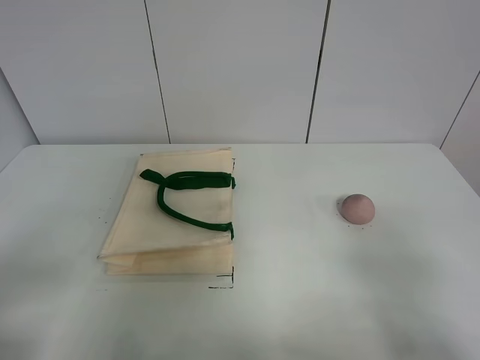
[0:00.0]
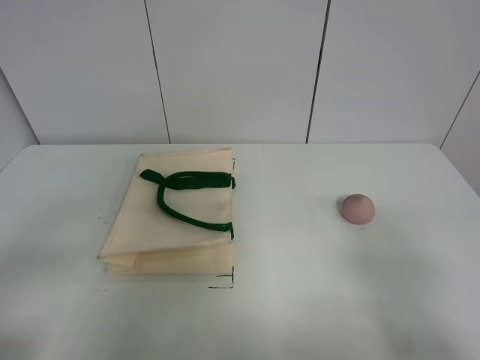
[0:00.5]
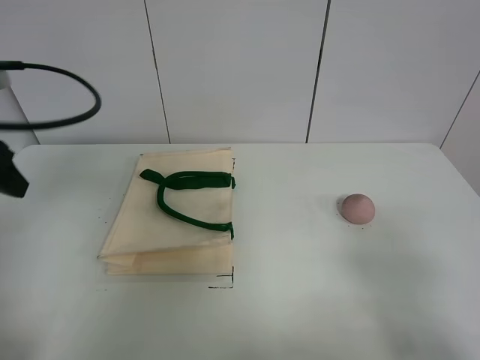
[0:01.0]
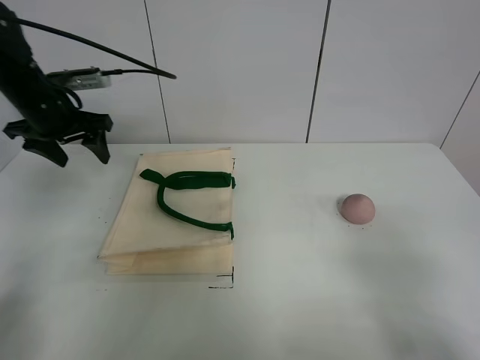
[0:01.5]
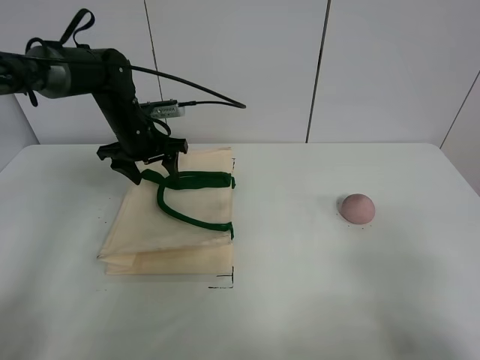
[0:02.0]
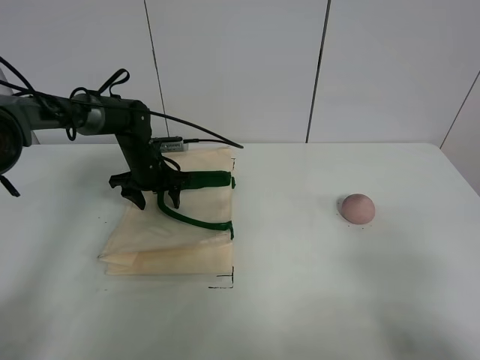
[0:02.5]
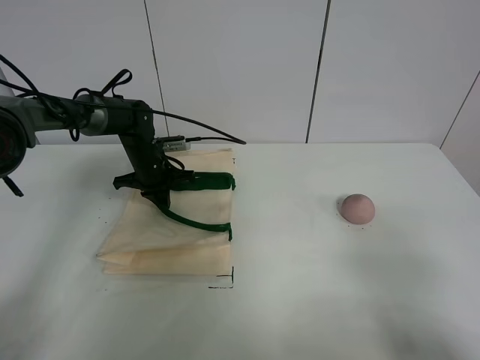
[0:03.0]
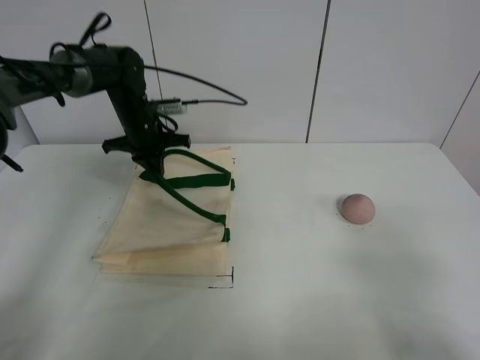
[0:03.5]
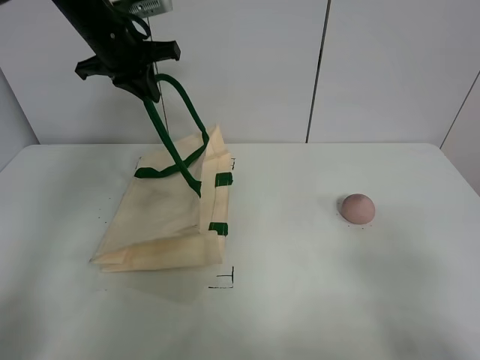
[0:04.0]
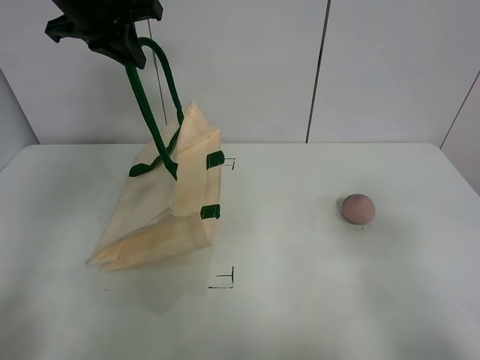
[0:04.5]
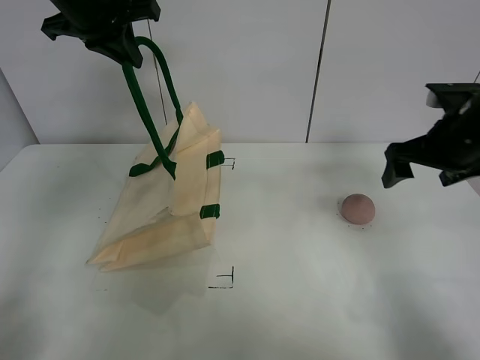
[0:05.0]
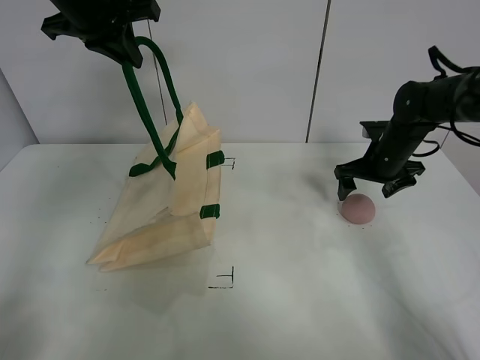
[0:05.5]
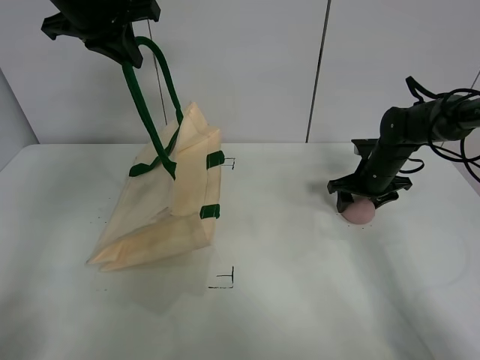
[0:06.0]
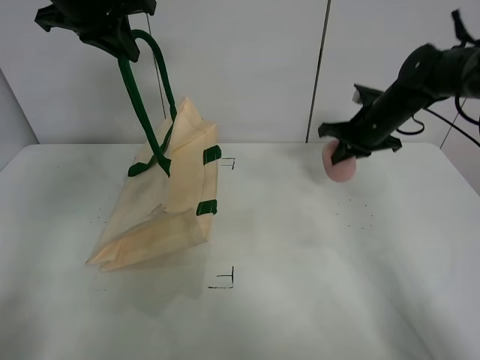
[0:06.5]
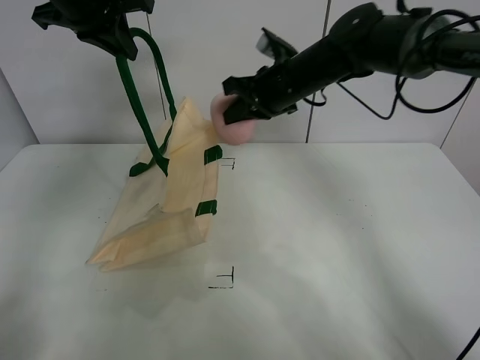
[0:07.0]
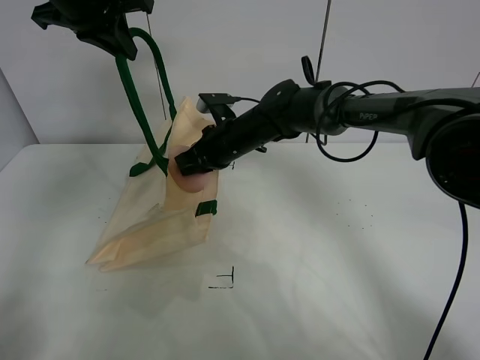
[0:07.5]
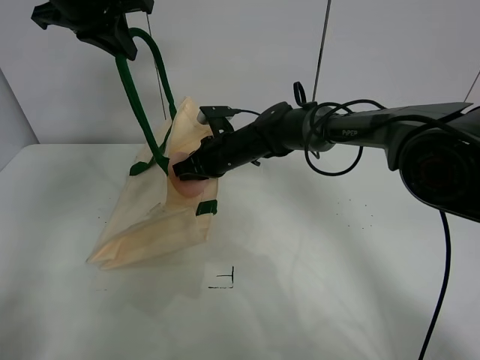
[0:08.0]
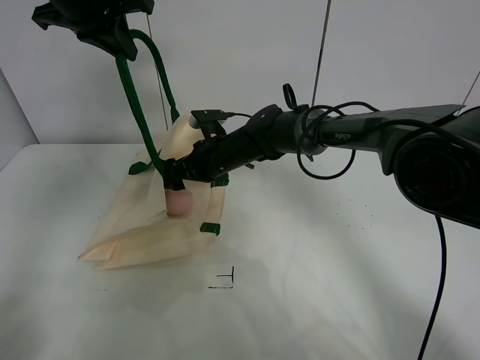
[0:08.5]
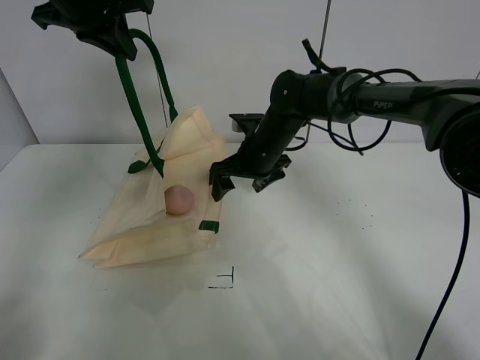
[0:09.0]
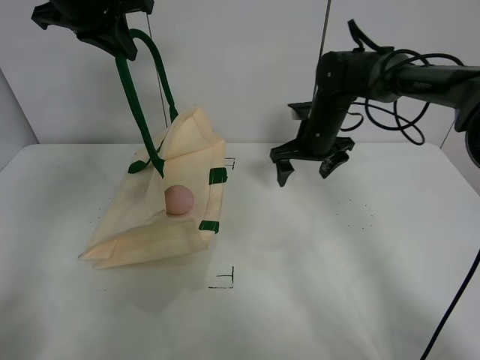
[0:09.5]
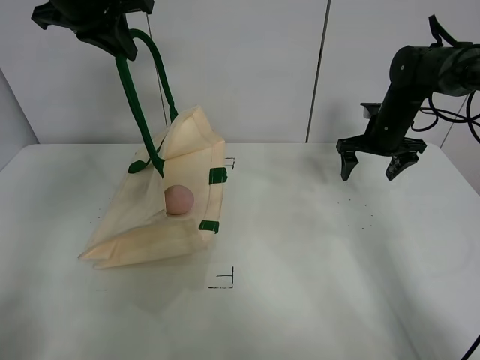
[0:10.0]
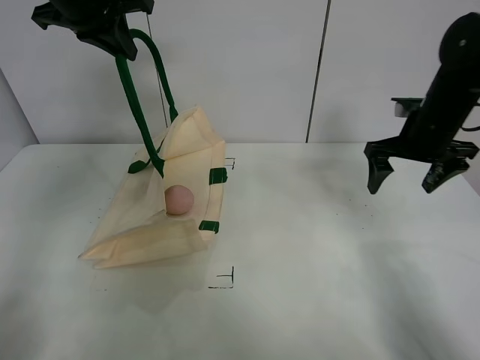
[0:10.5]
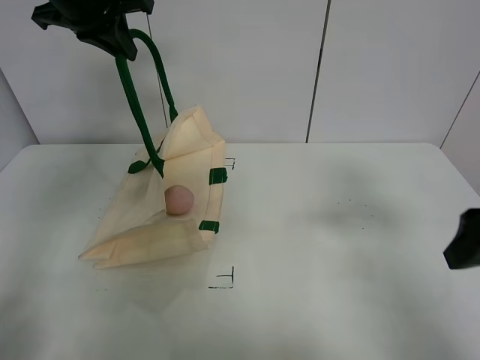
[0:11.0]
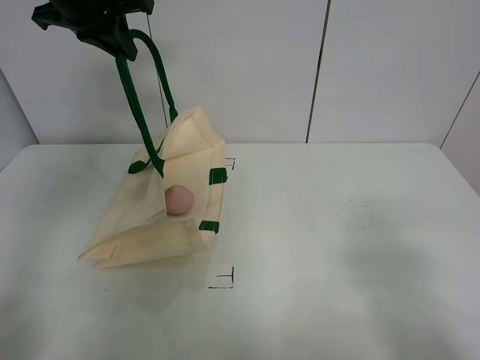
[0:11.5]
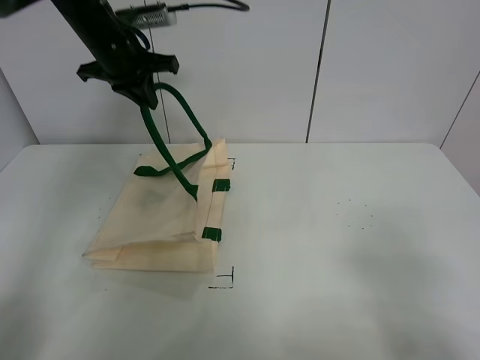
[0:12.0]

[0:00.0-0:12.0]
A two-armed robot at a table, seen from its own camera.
Task of the whole recording: open the white linen bag and put the peach in the bag.
Step, 0.0 to 4.0 s: Lift the handbag with left gripper.
Step, 4.5 to 6.0 s: Grasp the peach with right gripper.
Step, 6.5 to 8.5 s: Place the peach in the handbag with right gripper.
2.0 to 4.0 s: The left gripper goes approximately 15 cm upward, and closes its fingers.
4.0 to 6.0 s: The right gripper goes about 40 cm forward; the left gripper moves upward, roughly 5 cm.
6.0 to 8.0 s: The right gripper moves to the left, some 25 cm, and closes.
8.0 to 10.0 s: The right gripper travels to the right by some 25 cm, and opens its fingers.
10.0 to 12.0 s: The left gripper heads downward, covering approximately 5 cm. The right gripper goes about 50 cm backward.

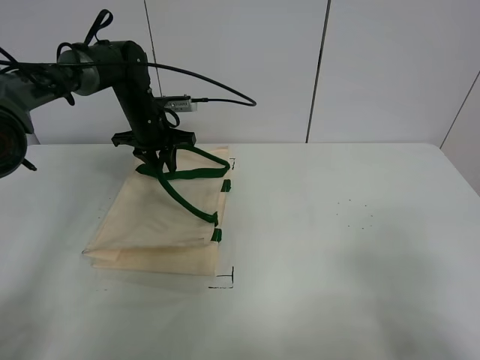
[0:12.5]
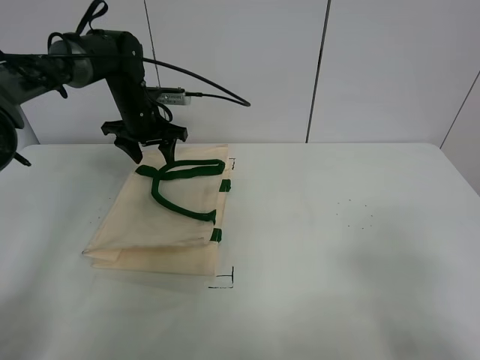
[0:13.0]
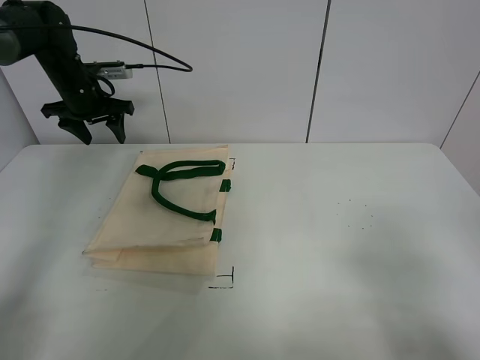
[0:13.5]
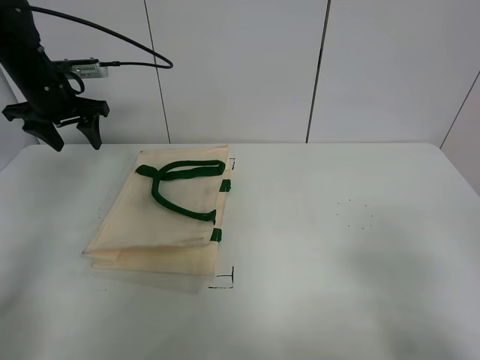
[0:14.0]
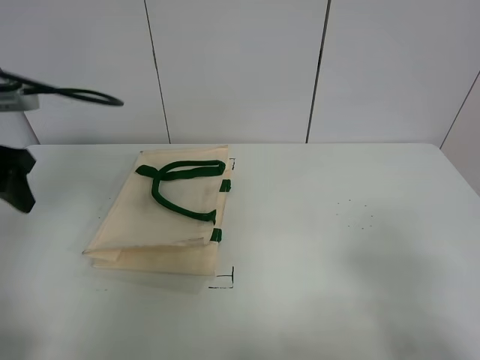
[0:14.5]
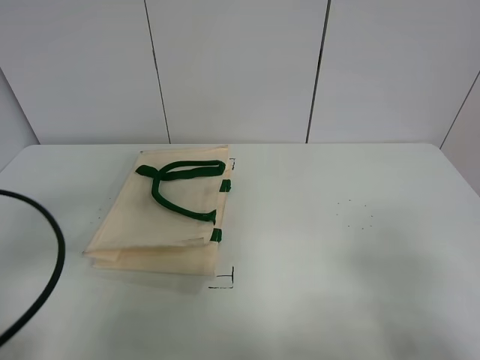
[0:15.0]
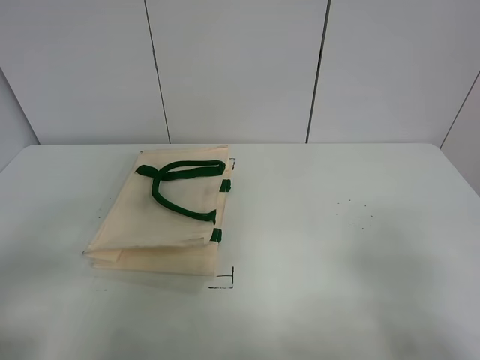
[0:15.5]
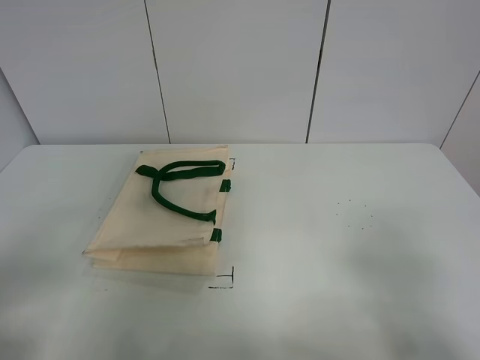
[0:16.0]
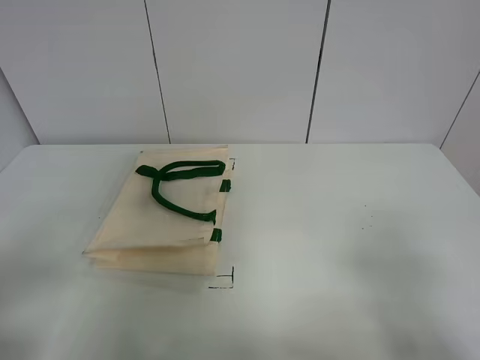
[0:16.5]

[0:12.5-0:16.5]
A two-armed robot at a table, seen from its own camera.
Task of the whole recording: open the white linen bag and put the peach in the bag.
12.5 to 14.5 s: The left gripper travels backward, to the left and upward by approximately 25 cm, and opens.
14.5 to 16.5 s: The left gripper goes about 30 cm backward.

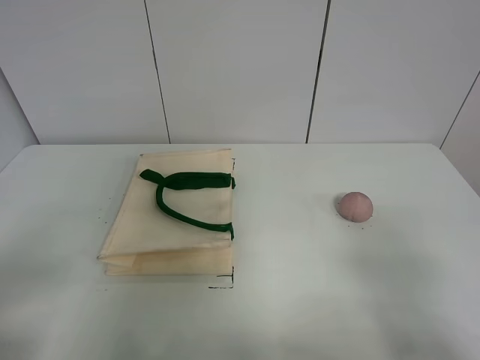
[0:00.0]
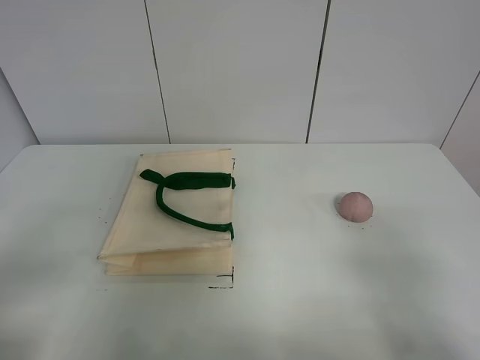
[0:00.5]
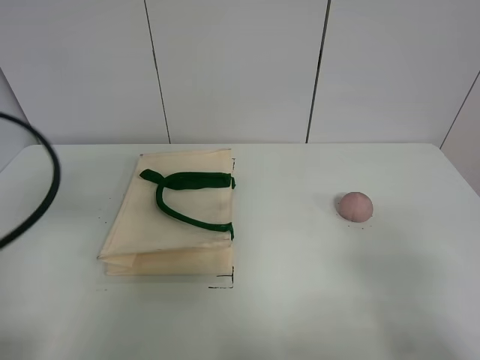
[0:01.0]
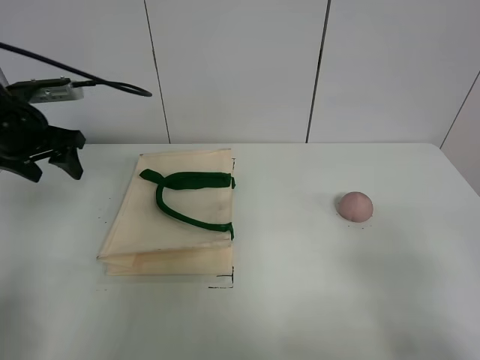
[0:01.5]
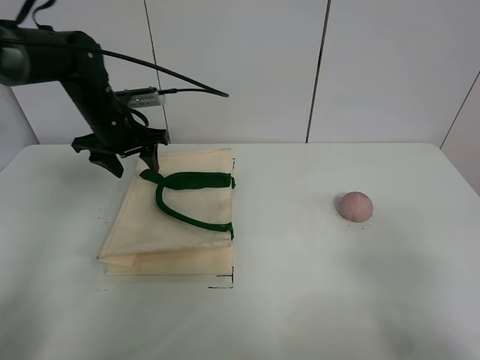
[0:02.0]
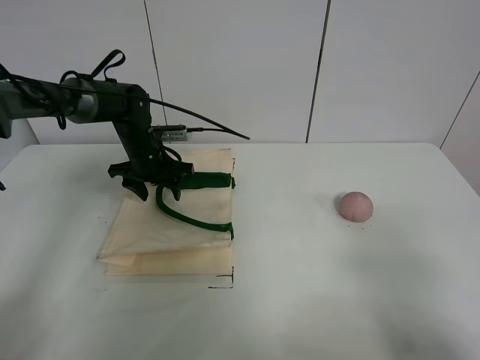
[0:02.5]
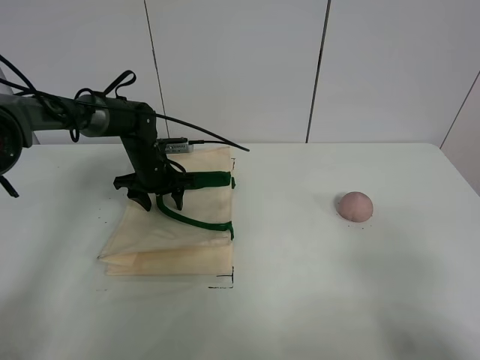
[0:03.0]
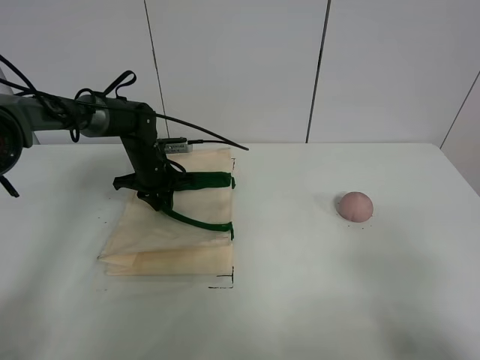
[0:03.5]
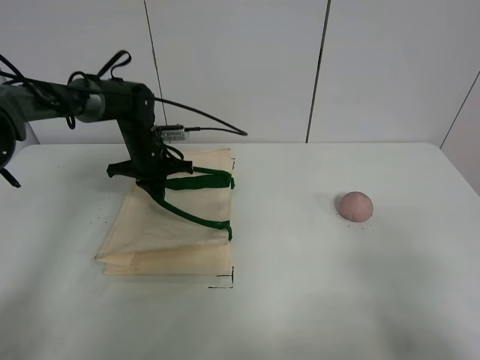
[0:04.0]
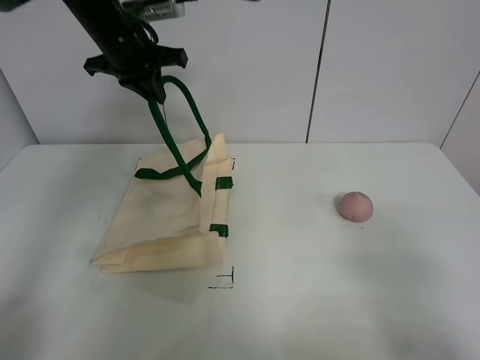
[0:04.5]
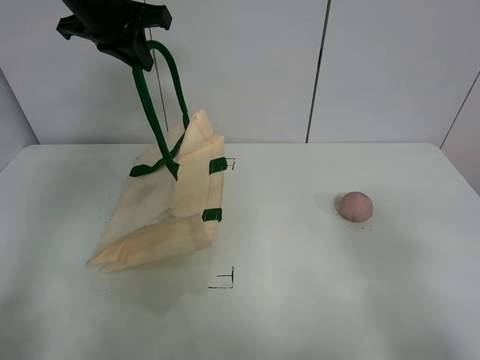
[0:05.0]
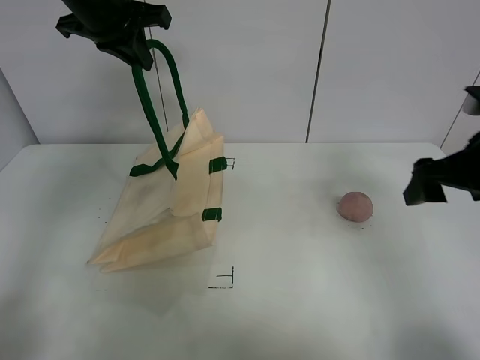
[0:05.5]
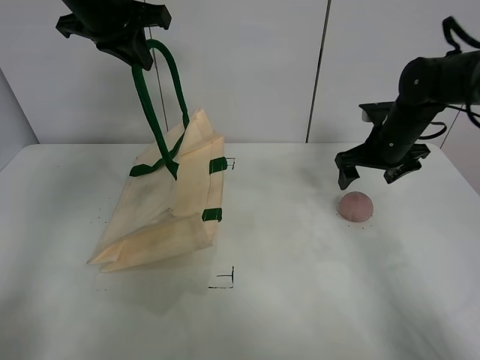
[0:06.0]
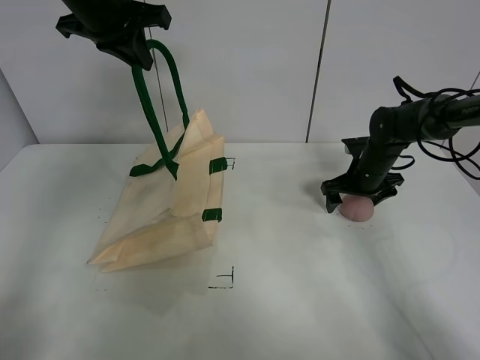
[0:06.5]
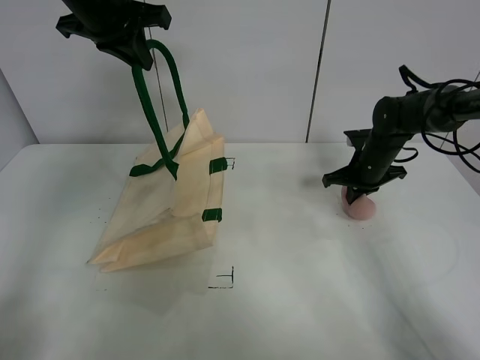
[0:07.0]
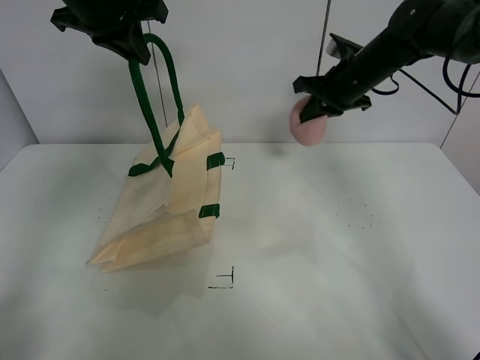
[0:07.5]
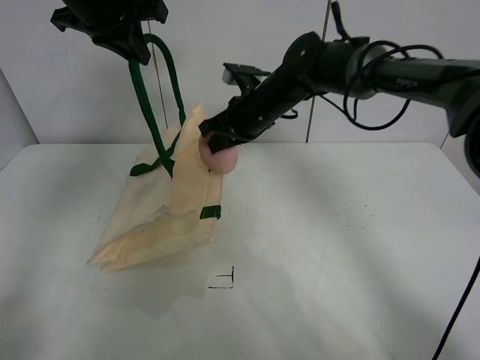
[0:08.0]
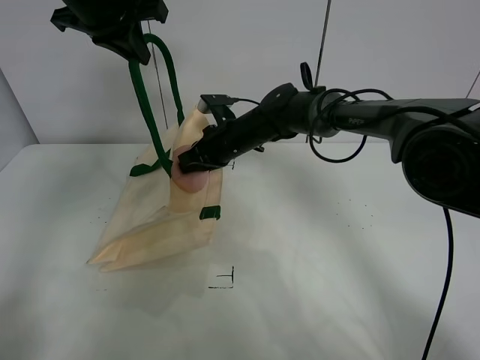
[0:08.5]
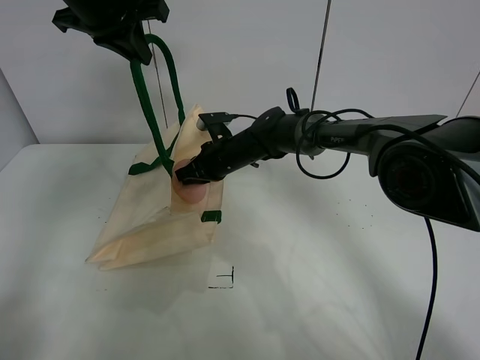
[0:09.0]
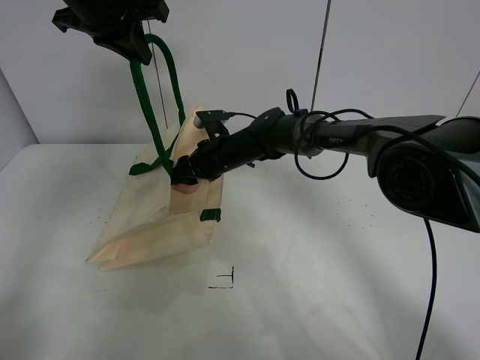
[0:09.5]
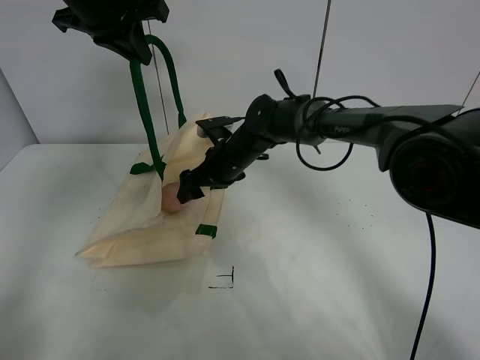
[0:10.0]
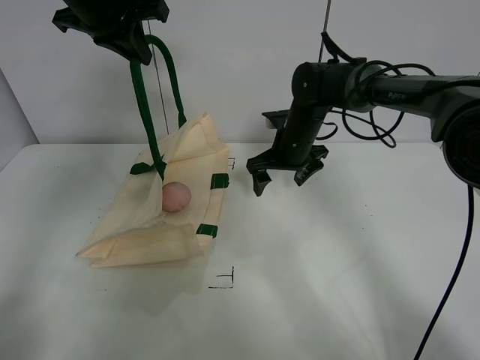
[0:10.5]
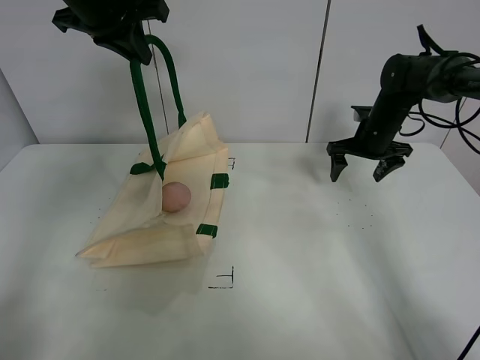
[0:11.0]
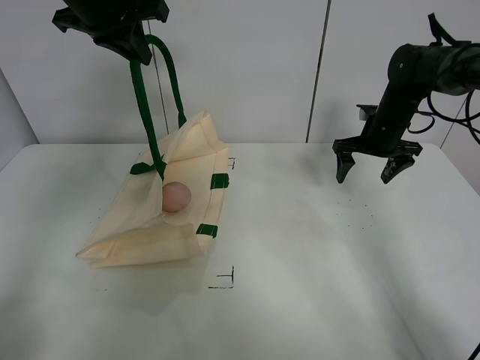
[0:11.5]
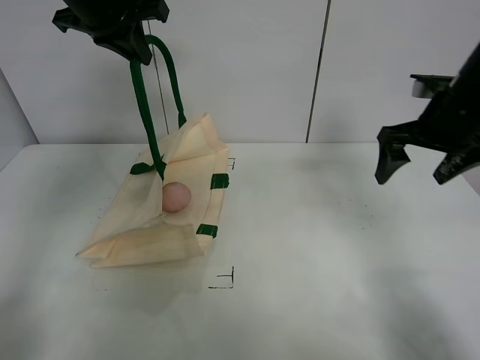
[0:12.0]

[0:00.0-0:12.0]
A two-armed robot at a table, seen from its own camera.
Task of the whole recording: open the white linen bag and put the peach in the bag.
Step, 0.0 to 4.5 s: Lift the handbag with left gripper.
Step, 5.0 to 7.0 s: Grasp the peach with right gripper.
Step, 7.5 to 10.0 s: Place the peach in the handbag with right gripper.
0.0 to 2.0 s: The left gripper goes roughly 40 cm forward.
2.0 to 4.0 s: The left gripper is displaced downward by approximately 5 cm, and closes up.
4.0 to 6.0 s: The right gripper goes roughly 40 cm forward; the left gripper moves upward, roughly 25 cm.
6.0 to 8.0 s: The right gripper heads to the left, covering some 20 cm, and closes.
8.0 to 10.0 s: The right gripper is displaced downward by some 5 cm, and opens up.
10.0 to 12.0 s: The right gripper moves to the right, upward and backward, approximately 30 cm.
